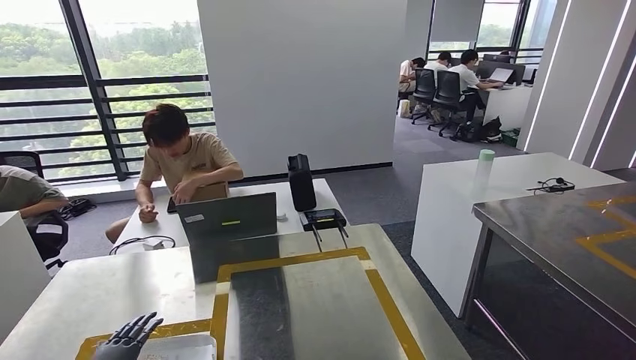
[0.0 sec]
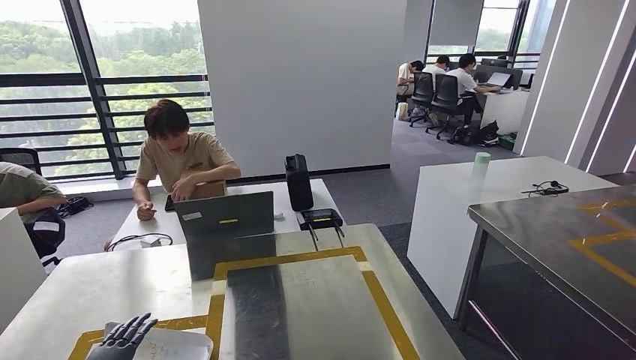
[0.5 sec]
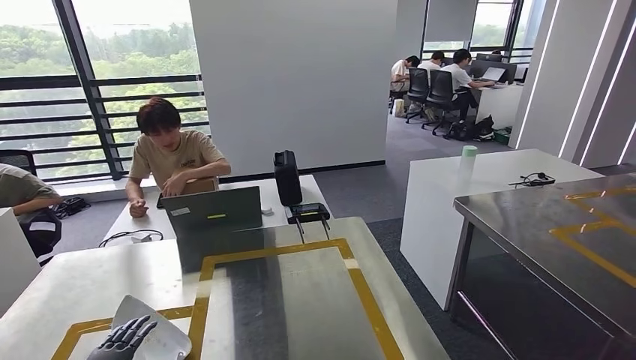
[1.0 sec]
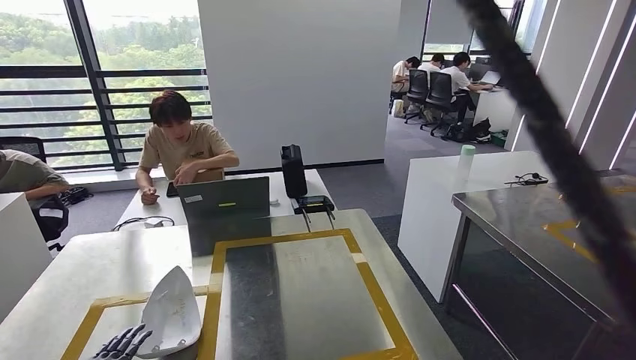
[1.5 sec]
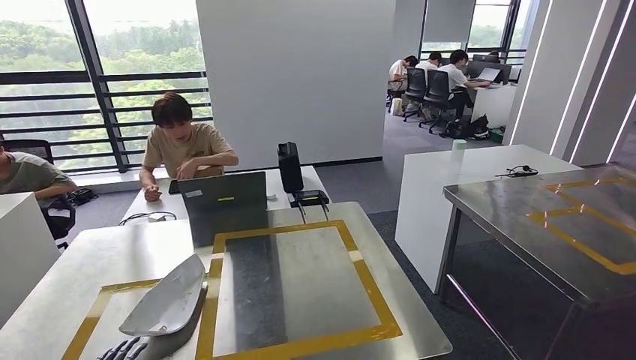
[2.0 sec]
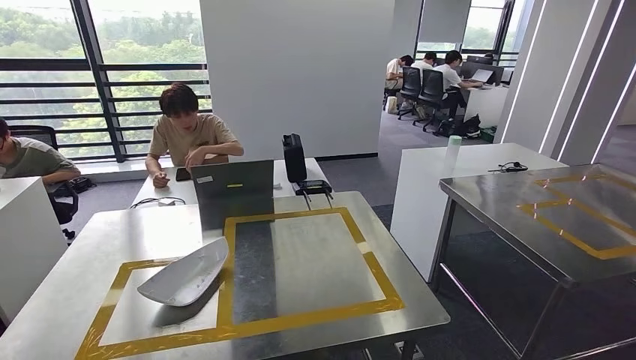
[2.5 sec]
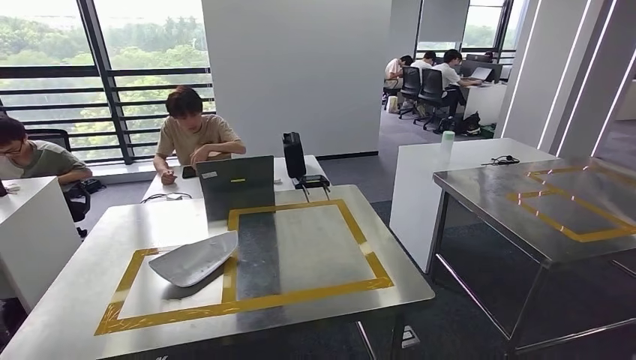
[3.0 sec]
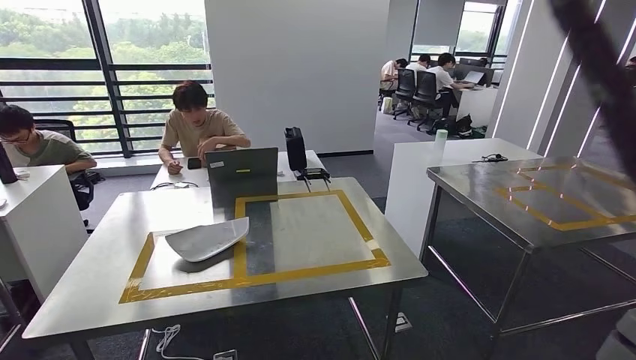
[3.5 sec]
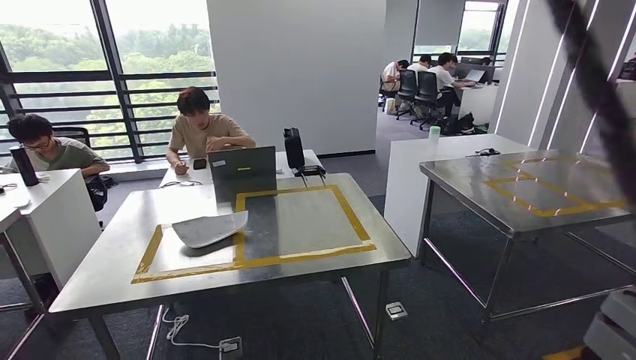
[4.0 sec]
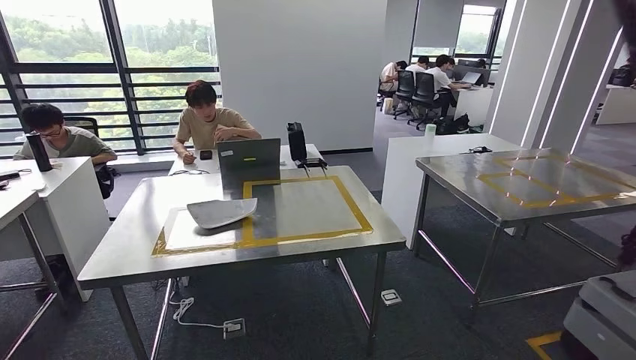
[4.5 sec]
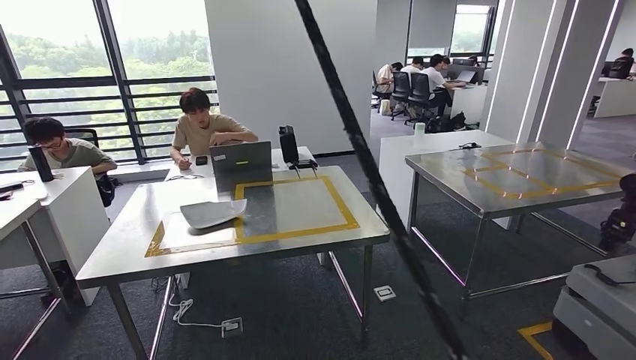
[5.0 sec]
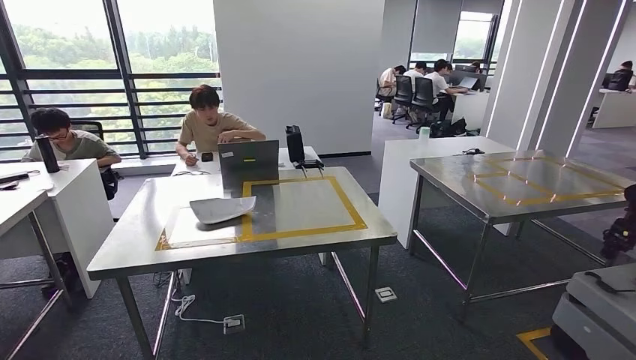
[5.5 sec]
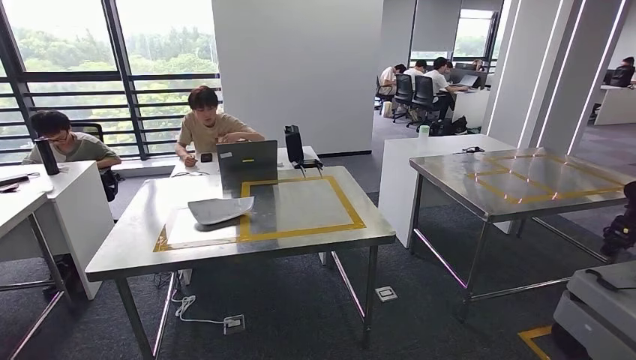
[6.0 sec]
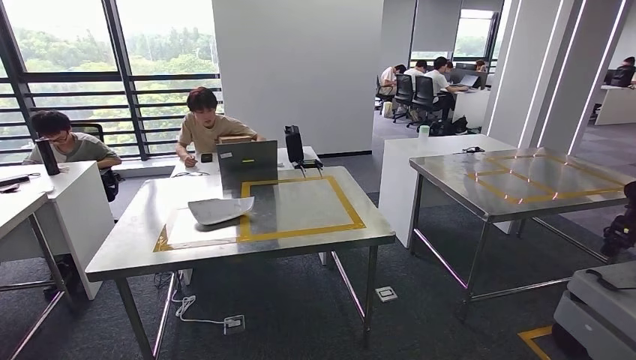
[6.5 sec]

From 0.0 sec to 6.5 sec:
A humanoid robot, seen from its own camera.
Step, from 1.5 sec to 6.5 sec: Move to the initial position at the workbench.
